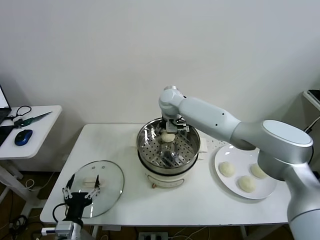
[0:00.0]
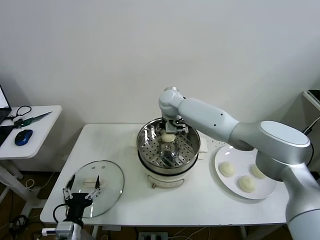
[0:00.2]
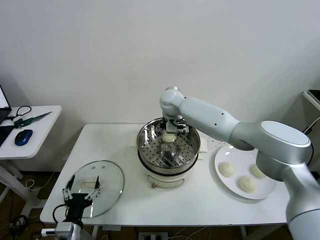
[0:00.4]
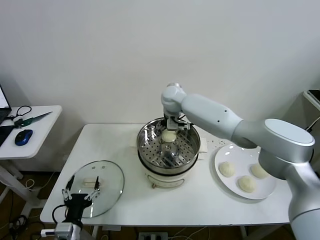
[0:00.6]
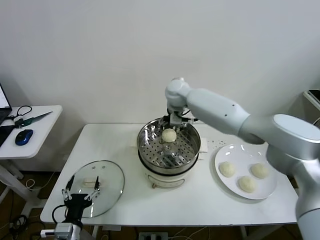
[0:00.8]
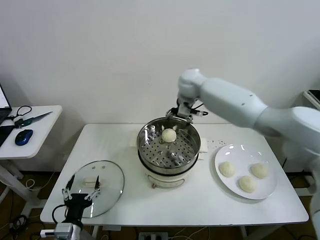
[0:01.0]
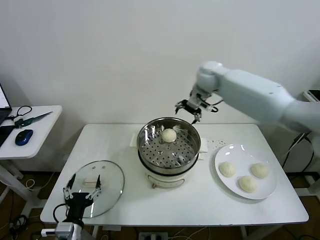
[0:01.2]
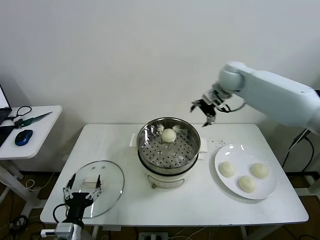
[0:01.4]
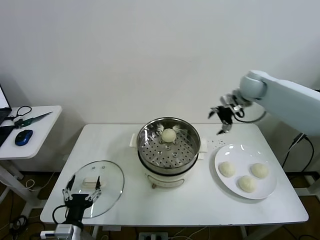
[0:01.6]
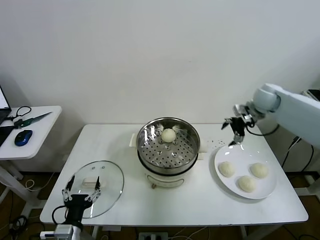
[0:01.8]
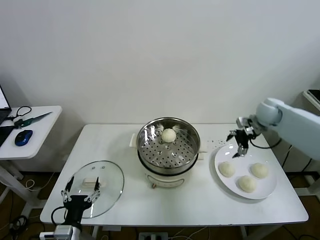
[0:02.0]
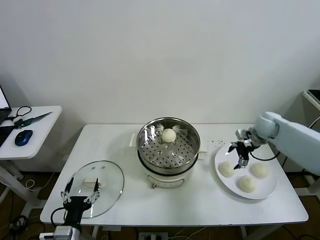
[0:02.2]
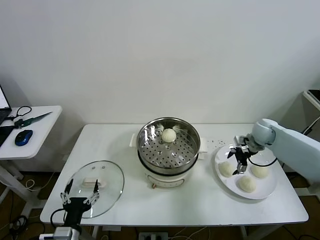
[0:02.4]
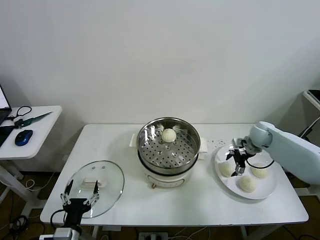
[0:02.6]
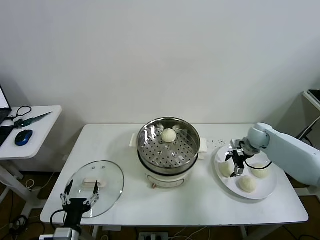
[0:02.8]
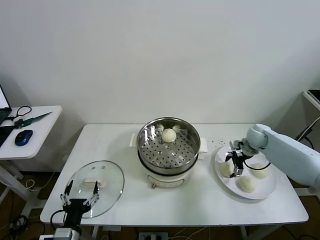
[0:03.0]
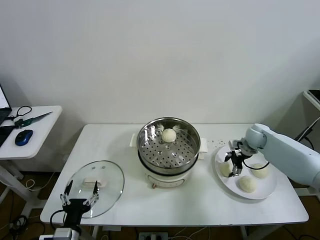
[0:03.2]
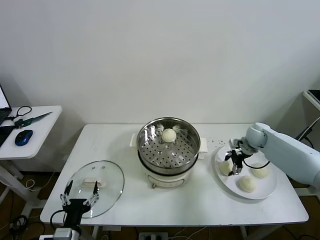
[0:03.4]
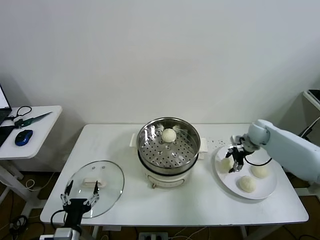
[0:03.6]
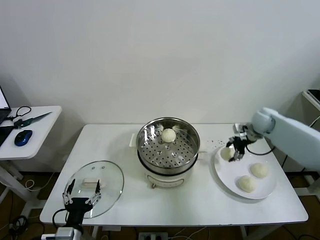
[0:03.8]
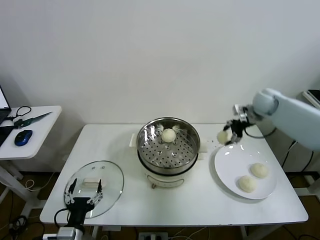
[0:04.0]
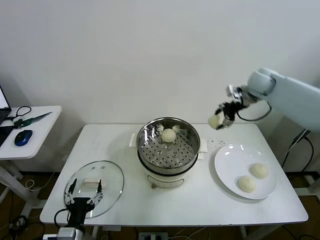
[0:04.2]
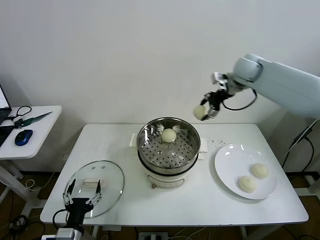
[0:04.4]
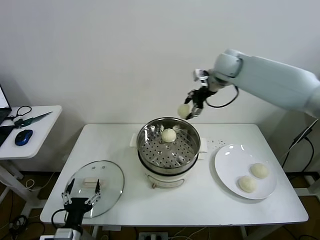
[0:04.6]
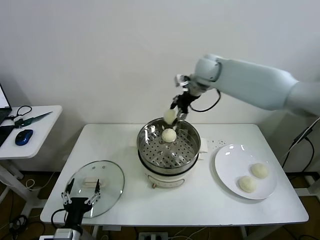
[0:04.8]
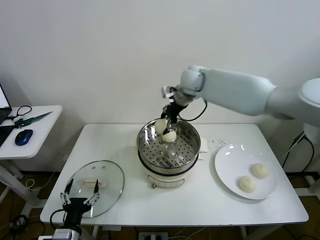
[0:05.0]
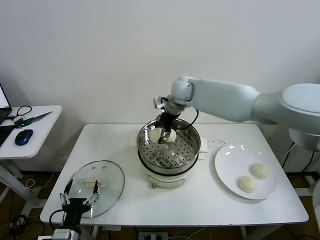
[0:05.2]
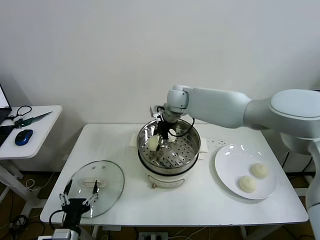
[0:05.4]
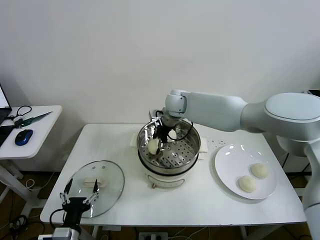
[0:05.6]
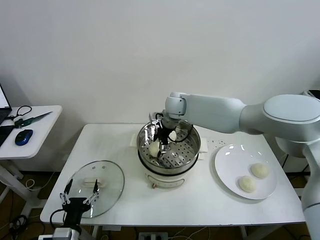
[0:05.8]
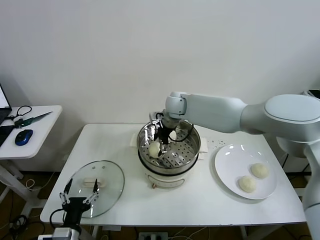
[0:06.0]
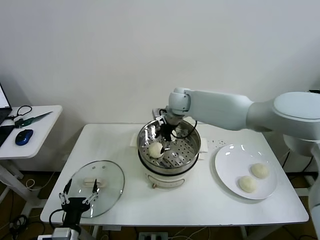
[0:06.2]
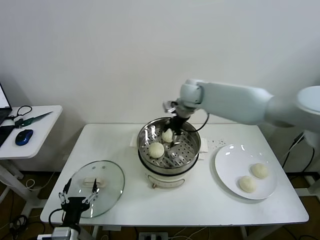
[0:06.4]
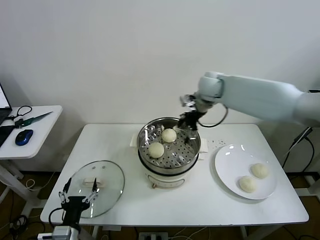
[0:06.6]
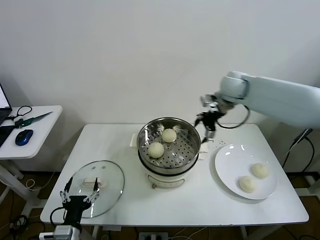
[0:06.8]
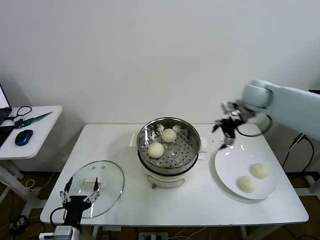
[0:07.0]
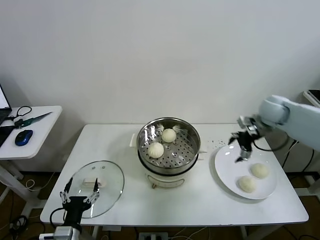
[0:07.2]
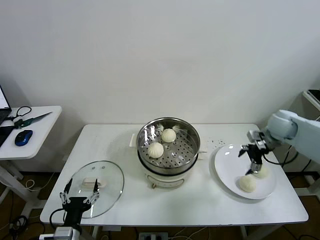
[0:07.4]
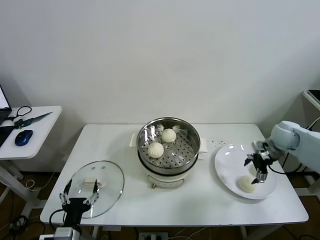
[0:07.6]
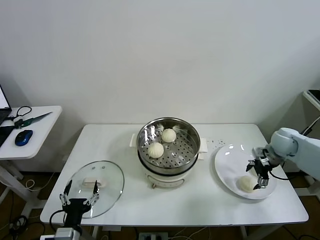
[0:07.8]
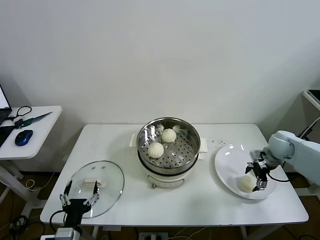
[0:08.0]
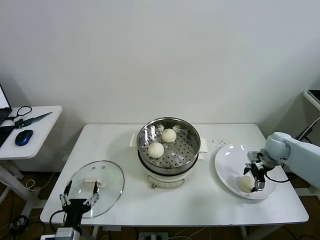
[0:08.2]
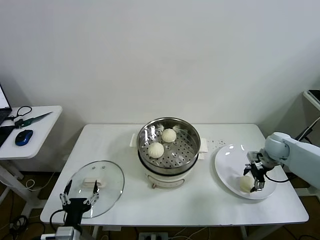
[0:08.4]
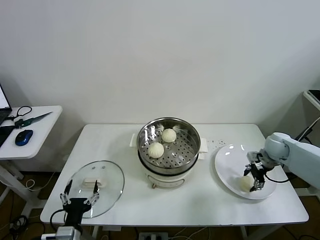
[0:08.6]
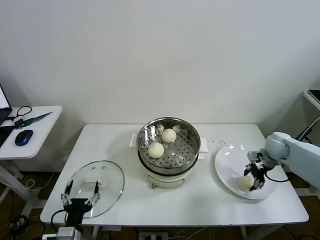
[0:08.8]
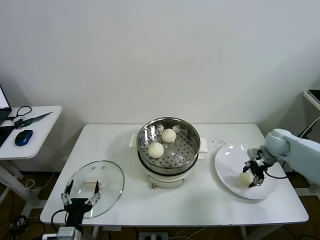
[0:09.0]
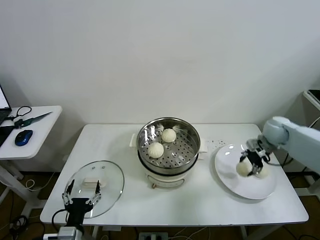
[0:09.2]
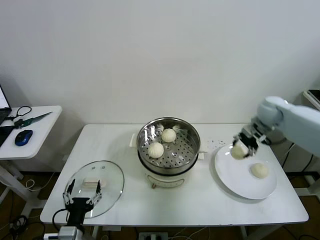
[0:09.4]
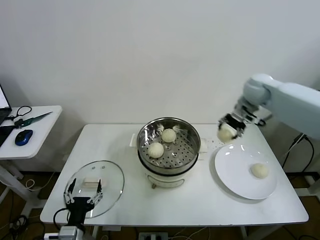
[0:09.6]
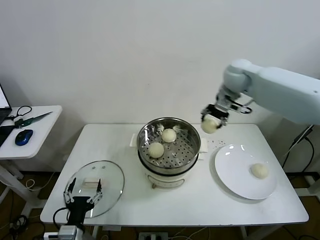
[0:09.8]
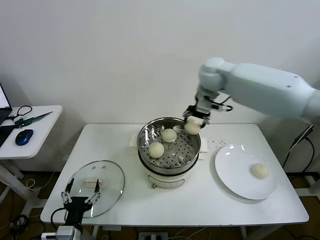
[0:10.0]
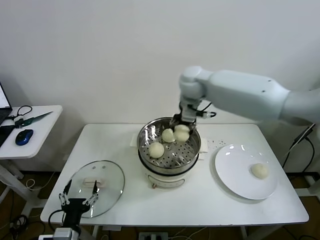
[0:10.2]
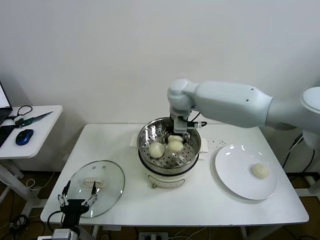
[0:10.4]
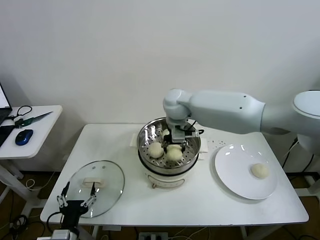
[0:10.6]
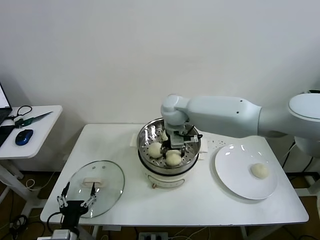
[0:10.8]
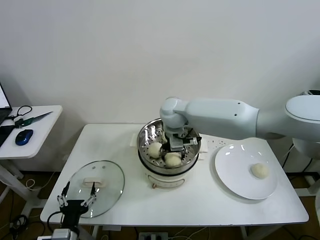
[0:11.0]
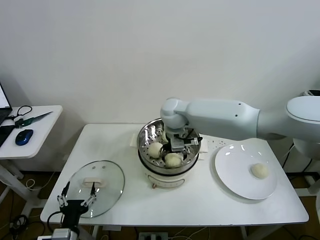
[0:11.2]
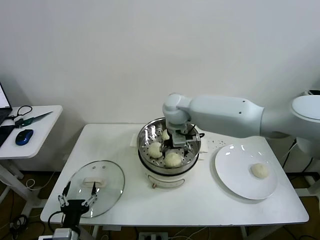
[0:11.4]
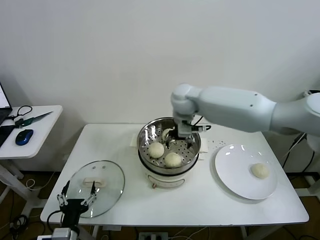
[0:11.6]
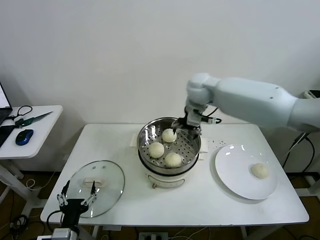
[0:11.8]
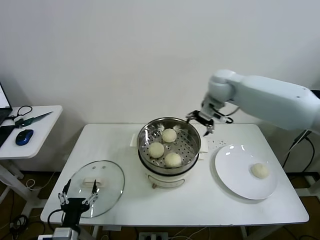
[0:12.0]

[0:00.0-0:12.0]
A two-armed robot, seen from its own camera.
Task of the whole recording: take steamed baozi put them in steamer then cover it.
Step, 0:00.6 to 0:03.4: Grasp the baozi in the plate with right gripper.
Step, 0:03.6 to 0:06.0: Place the baozi on the steamer with right gripper.
Step, 0:06.2 to 0:08.6: Grasp the baozi in the plate with right gripper.
Step, 0:09.0 to 0:11.2: Place the baozi on the steamer with right gripper.
0:00.0 to 0:01.6: The right gripper shifts about 30 cm to the right, and opens.
0:01.6 to 0:03.0: The right gripper heads downward, covering roughly 20 cm.
0:03.0 to 0:04.4: The right gripper moves upward and to the left, approximately 30 cm, and closes its fingers.
0:04.4 to 0:06.0: The right gripper goes approximately 25 cm to the left and downward, and opens up.
0:06.0 to 0:07.6: The right gripper travels to the right by about 40 cm.
0:07.6 to 0:09.0: The right gripper closes up.
0:09.0 to 0:10.4: The right gripper shifts about 40 cm to the left and upward.
0:10.4 to 0:12.0: The right gripper shifts some 15 cm to the right, and opens up.

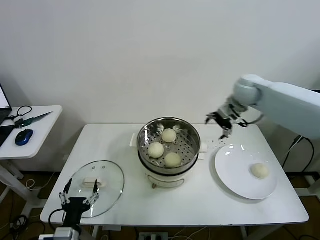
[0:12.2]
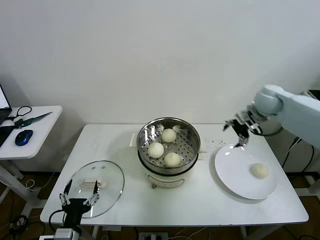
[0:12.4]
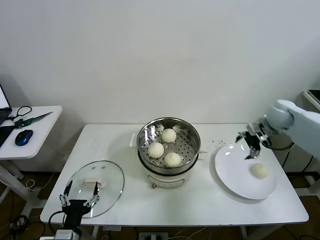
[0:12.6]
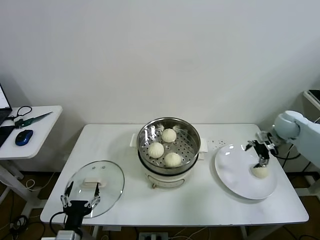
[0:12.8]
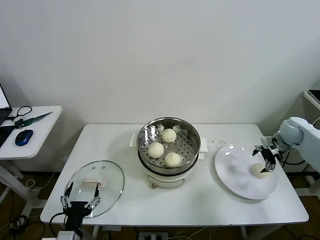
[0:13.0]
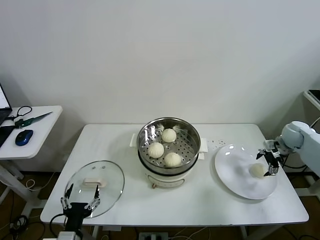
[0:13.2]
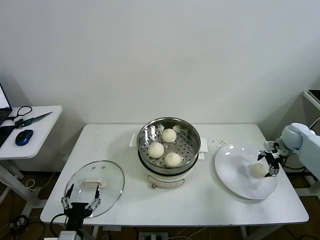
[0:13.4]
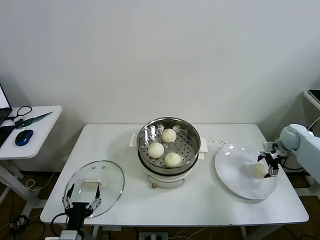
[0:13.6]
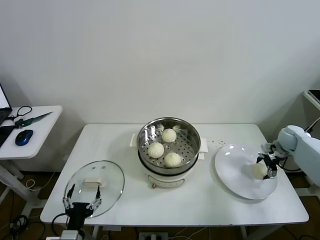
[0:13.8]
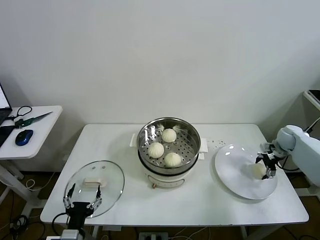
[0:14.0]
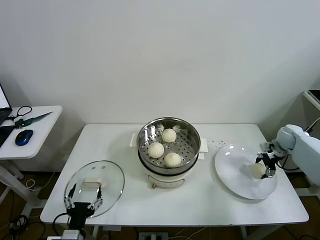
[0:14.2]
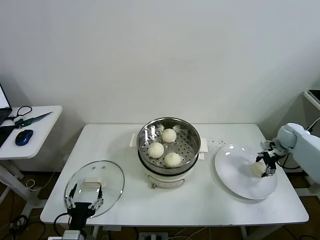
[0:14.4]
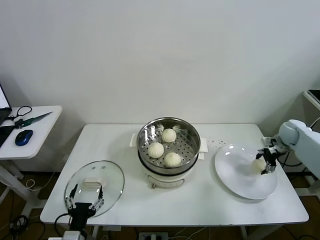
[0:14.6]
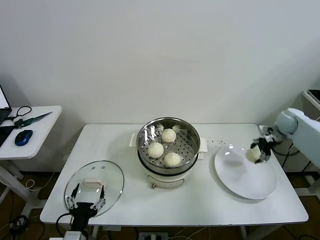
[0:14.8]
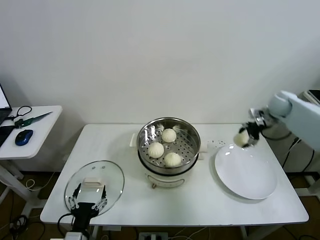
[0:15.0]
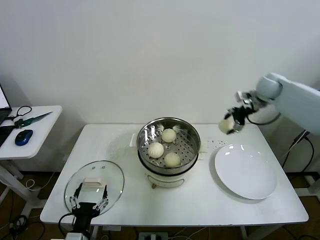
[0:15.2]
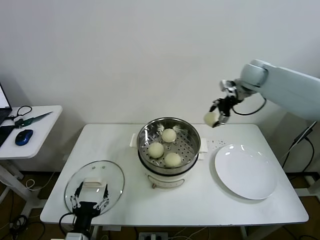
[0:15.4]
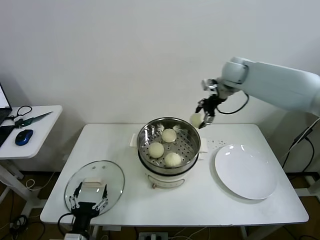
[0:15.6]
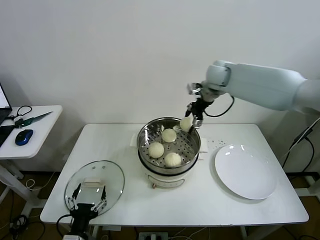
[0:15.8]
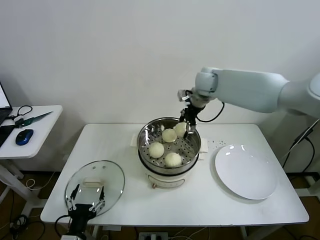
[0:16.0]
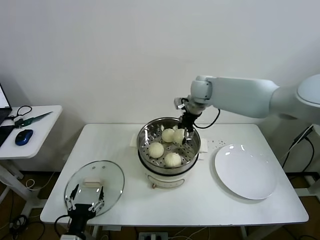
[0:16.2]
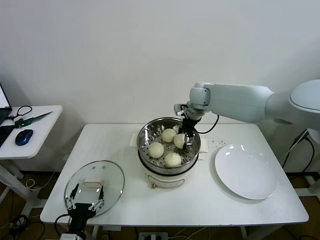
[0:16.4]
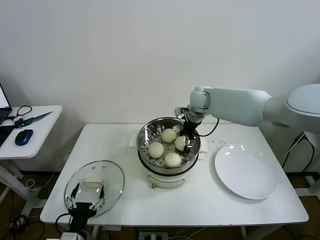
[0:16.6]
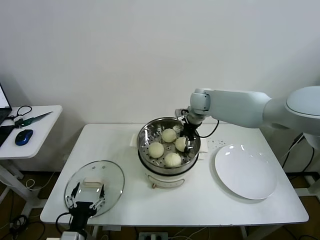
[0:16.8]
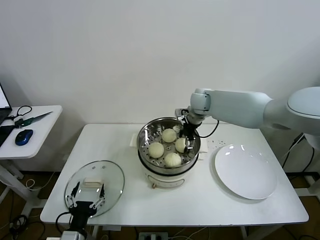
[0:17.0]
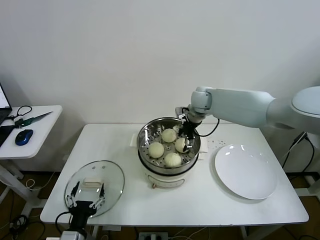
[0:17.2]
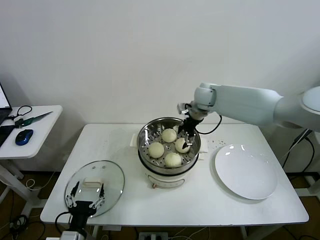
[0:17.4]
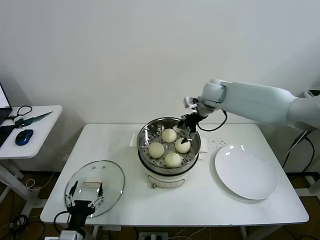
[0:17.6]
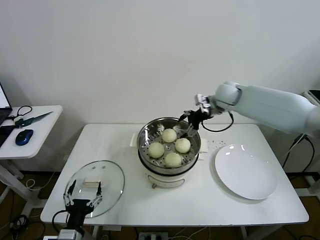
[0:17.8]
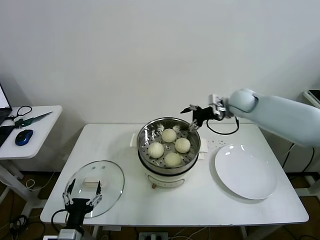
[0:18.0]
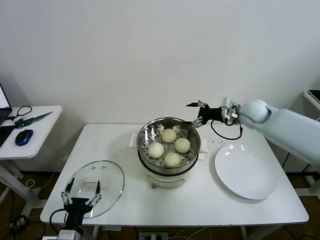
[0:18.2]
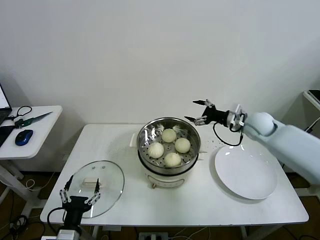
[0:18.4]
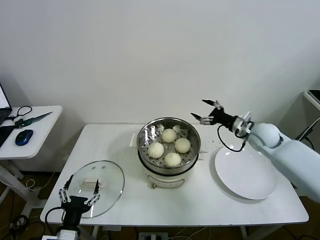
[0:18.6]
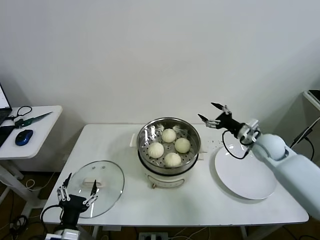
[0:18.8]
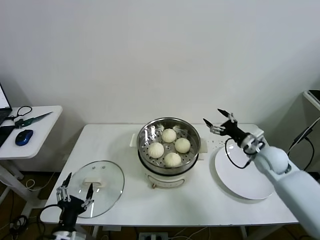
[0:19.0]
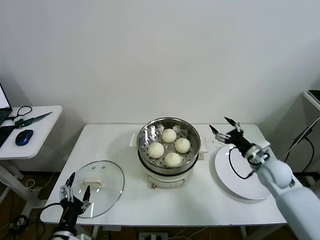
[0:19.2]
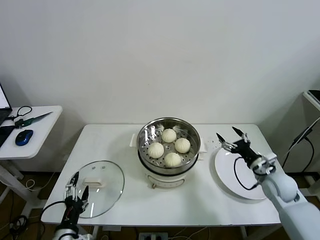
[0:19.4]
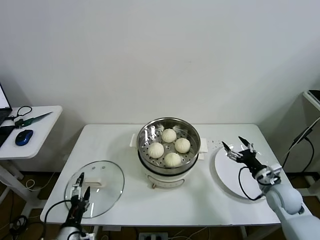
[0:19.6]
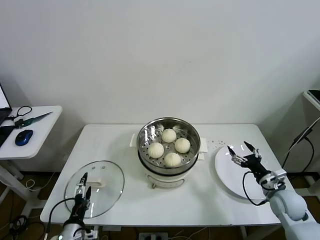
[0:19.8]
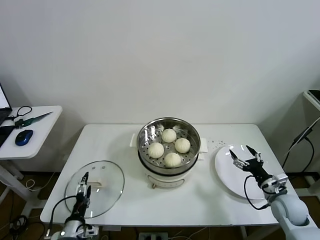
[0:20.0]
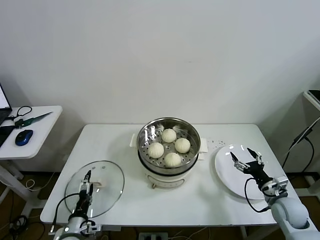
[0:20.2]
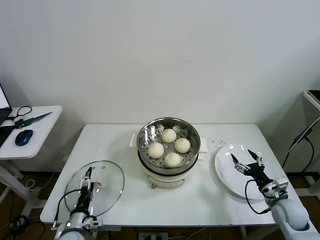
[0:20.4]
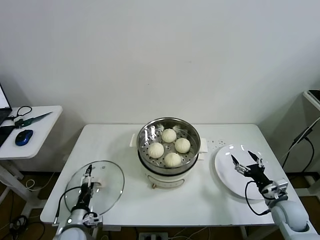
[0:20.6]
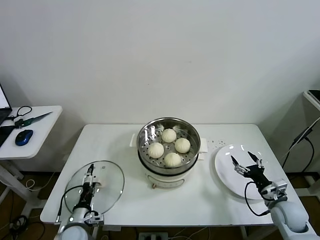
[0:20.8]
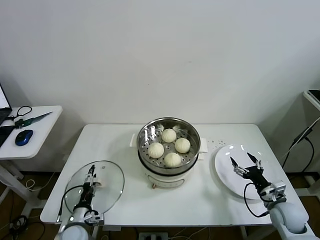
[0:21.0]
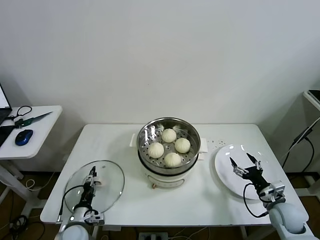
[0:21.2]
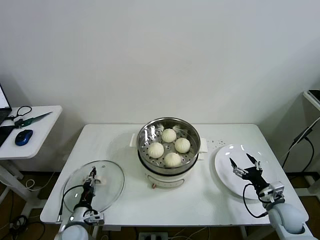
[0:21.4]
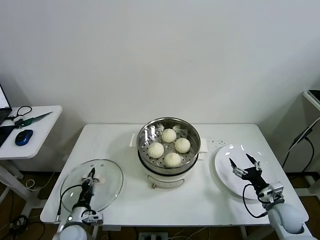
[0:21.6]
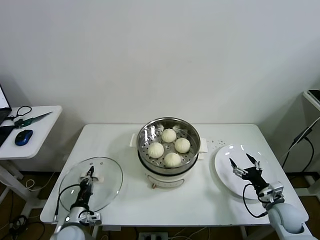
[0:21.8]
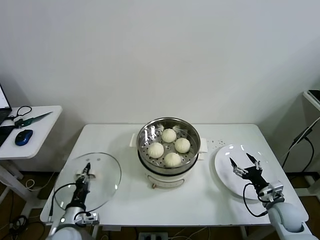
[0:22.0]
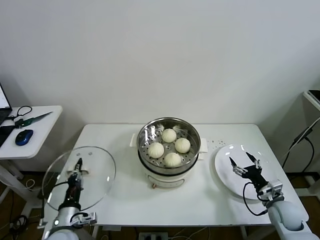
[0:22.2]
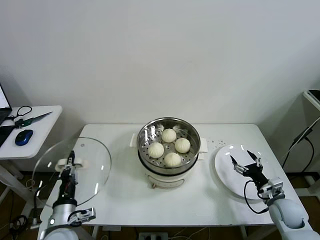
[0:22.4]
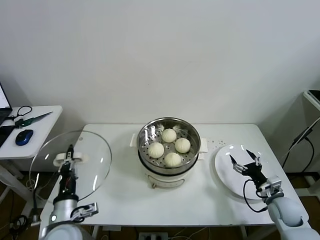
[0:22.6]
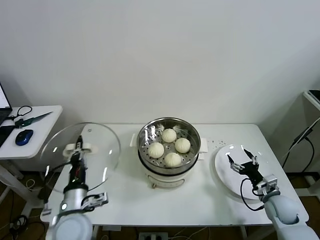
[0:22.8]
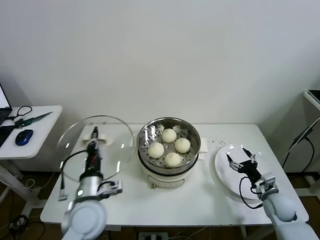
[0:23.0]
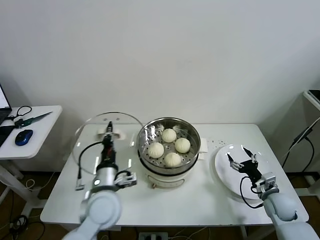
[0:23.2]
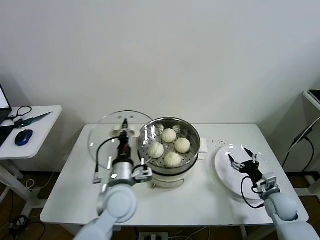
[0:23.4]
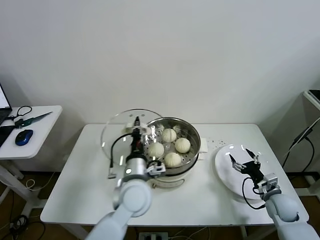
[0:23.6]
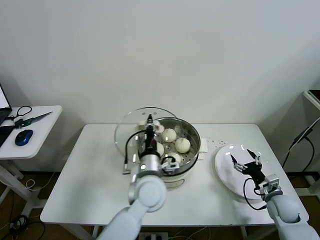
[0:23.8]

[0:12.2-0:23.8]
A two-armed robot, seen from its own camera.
Task of the whole recording: take steamed baozi put them in steamer then cover it.
Step, 0:12.2 to 0:14.0: Grasp the baozi in the plate with right gripper.
Step, 0:14.4 to 0:17.0: Place the baozi on the steamer with right gripper.
Step, 0:17.2 to 0:21.4: Grasp the pot lid with left gripper.
0:12.2 to 0:13.6: The right gripper is displaced to the right and downward by roughly 30 cm.
0:13.6 to 0:15.0: The right gripper heads upward, to the left and forward, covering roughly 15 cm, and closes up.
0:15.0 to 0:16.6: The right gripper is displaced to the left by about 30 cm.
0:16.6 to 0:18.0: The right gripper goes some 15 cm to the right, and opens up.
0:18.0 to 0:19.4: The right gripper travels backward, downward and to the right by approximately 30 cm.
0:19.4 to 0:21.0: The left gripper is displaced downward and forward by approximately 15 cm; the right gripper travels backward and downward by approximately 10 cm.
0:21.0 to 0:22.4: The left gripper shifts some 10 cm upward, and closes.
0:22.4 to 0:23.8: The left gripper goes approximately 25 cm to the right and forward.
